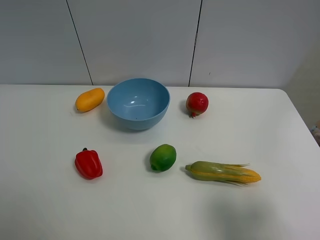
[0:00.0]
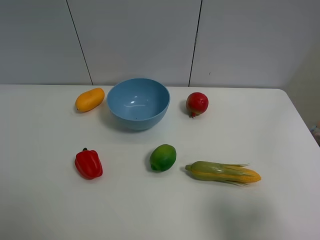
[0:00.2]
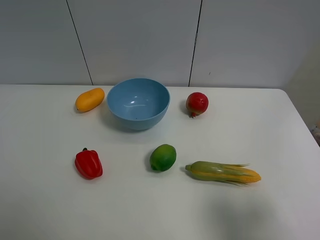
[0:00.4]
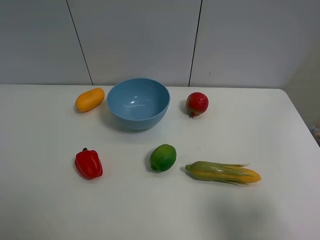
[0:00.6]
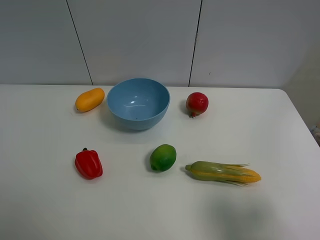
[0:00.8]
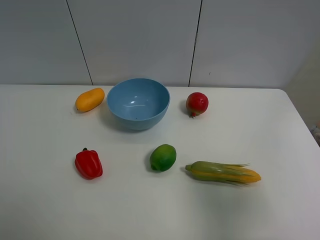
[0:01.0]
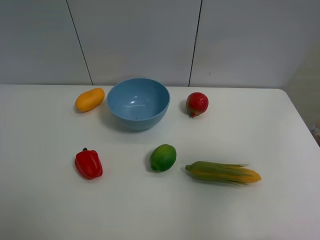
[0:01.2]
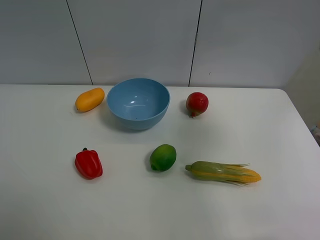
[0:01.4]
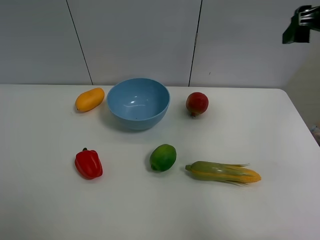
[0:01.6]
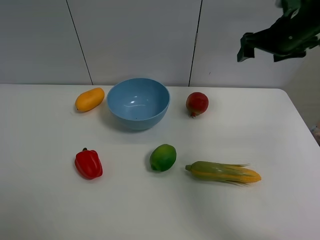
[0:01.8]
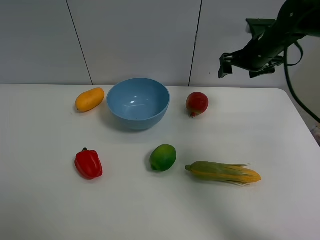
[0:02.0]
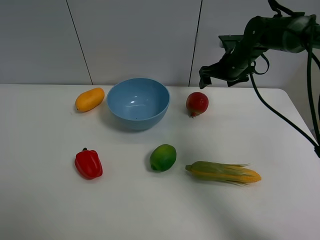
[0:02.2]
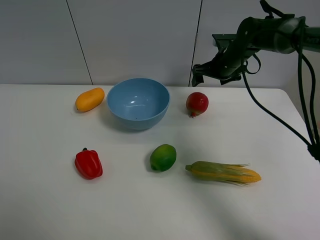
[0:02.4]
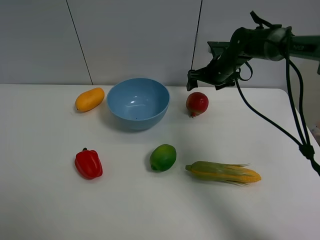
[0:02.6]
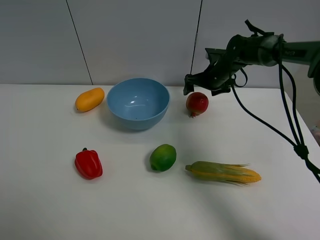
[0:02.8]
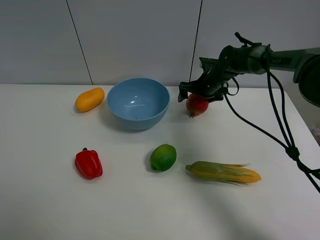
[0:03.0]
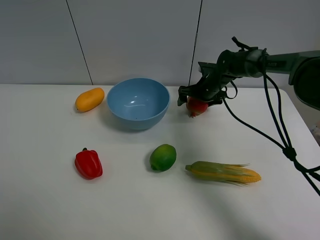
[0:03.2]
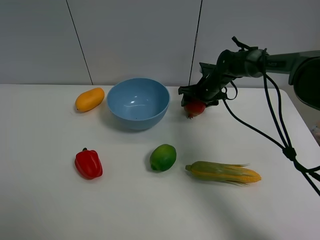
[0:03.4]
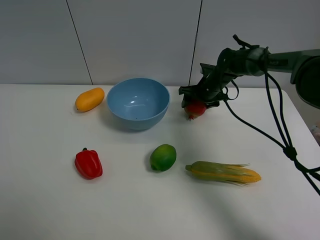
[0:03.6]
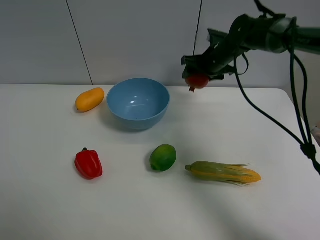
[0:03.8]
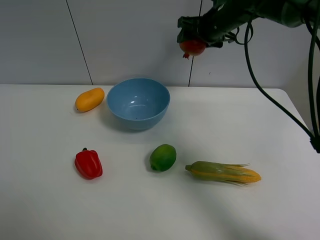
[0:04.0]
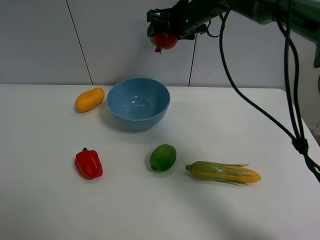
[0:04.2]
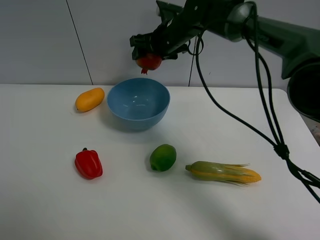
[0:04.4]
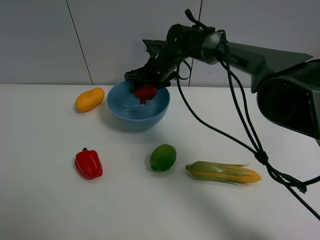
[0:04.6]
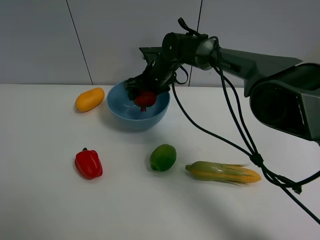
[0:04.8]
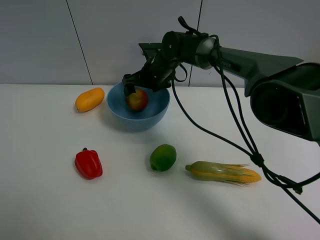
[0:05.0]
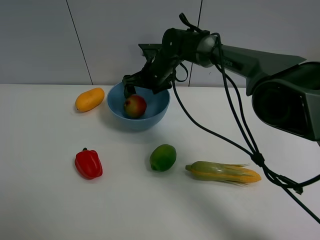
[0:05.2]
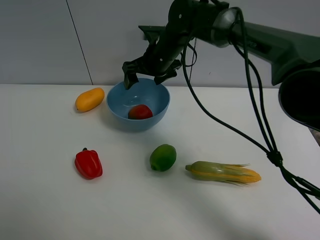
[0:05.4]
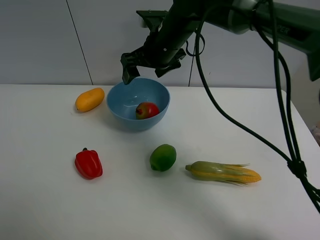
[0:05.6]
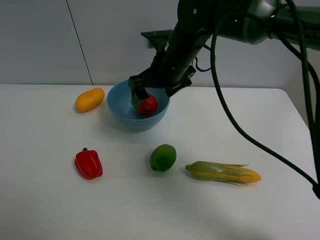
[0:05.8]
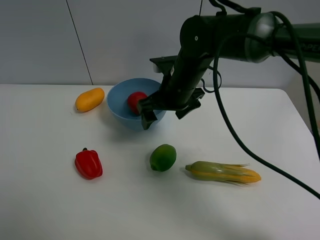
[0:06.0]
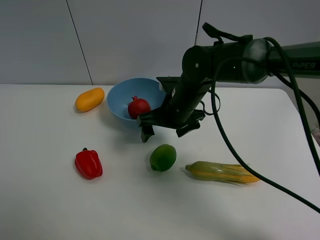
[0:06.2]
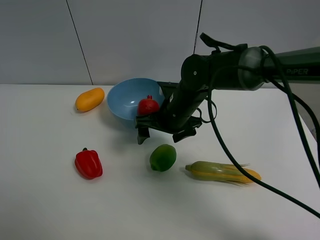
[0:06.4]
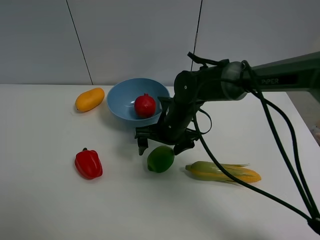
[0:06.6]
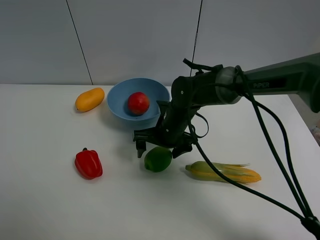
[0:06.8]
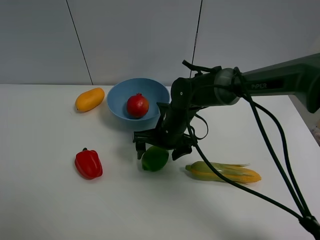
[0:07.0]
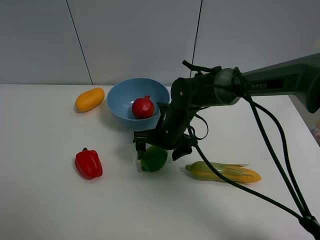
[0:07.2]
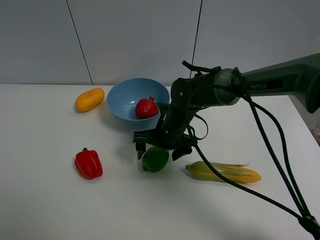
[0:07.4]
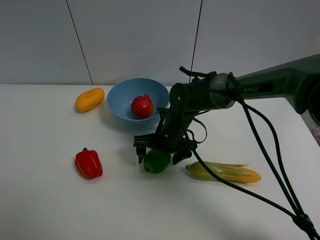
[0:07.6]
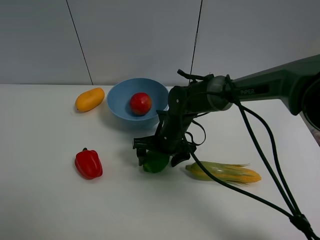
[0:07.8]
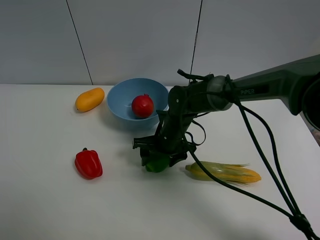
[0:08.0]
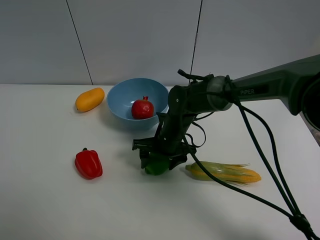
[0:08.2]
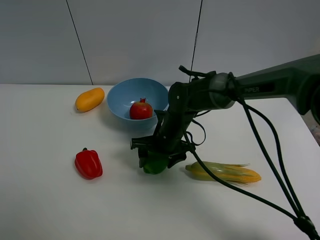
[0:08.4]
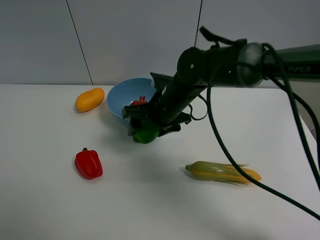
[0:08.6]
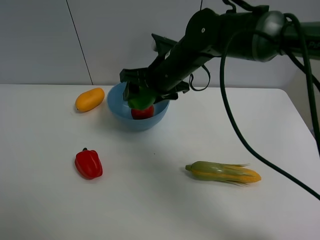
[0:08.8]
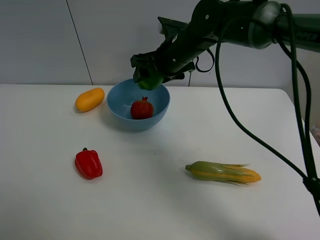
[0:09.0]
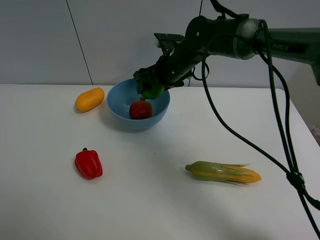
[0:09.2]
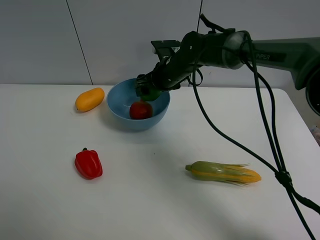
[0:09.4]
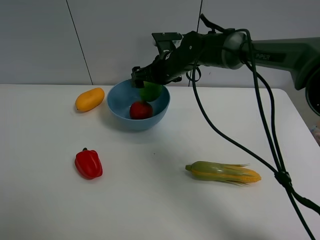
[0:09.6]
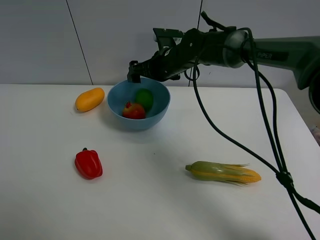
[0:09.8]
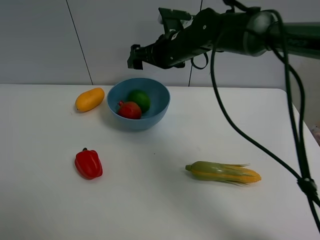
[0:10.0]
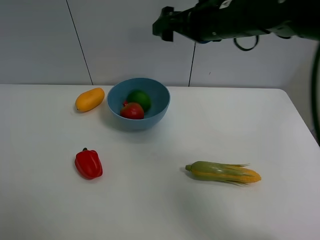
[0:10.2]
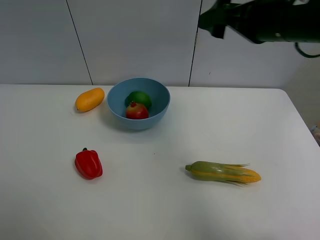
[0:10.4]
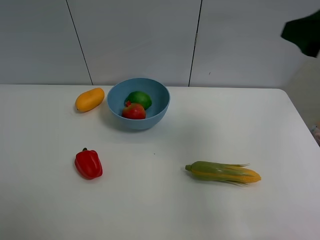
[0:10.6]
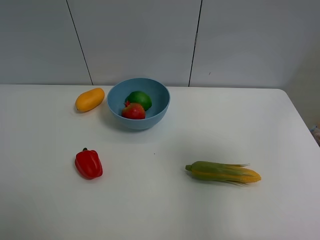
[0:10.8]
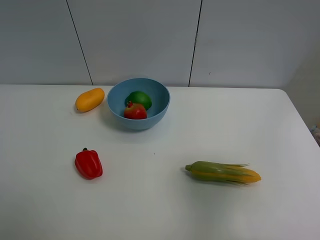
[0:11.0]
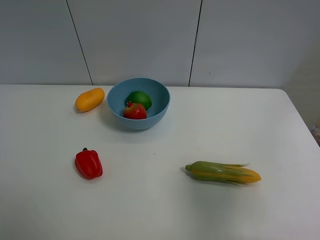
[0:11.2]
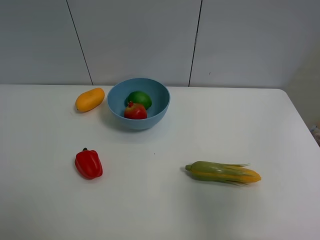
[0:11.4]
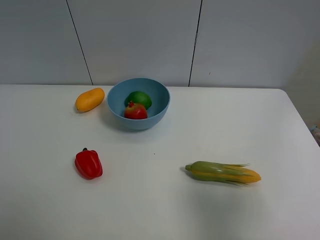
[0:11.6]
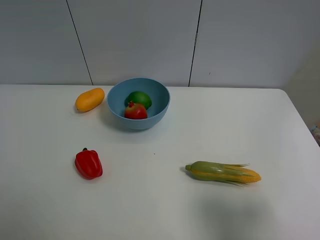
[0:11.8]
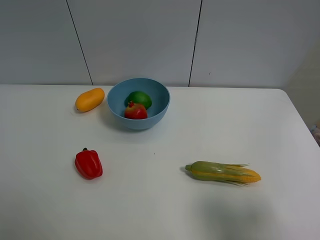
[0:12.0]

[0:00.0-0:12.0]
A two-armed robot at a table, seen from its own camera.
Task of the whole recording: Put the three fruits on the table into a bowl.
Step, 0:00.0 to 0:03.4: Grasp the pomegranate with right gripper.
Step, 0:03.6 to 0:04.8: Place the pomegranate in the blue bowl with right gripper.
Step, 0:05.0 to 0:08.2: Grasp the green lemon with right gripper.
Step, 0:08.4 to 0:09.8: Place the green lemon in the blue bowl with right gripper.
0:00.0 to 0:01.6: The right gripper is displaced forward by roughly 30 cm.
0:01.6 to 0:03.0: The right gripper is displaced downward, forward and to the left by roughly 35 cm.
0:03.0 to 0:04.4: The right gripper is displaced to the left and upward by some 20 cm, and closes.
0:04.4 to 0:06.0: The right gripper travels backward by about 15 cm, and opens its fingers.
0:06.0 to 0:07.6: The right gripper heads downward, covering about 10 cm.
0:07.6 to 0:09.0: The right gripper shifts approximately 15 cm upward and forward, and closes its fingers.
0:09.0 to 0:10.4: The right gripper is displaced to the right, backward and upward by approximately 20 cm, and opens up.
0:10.4 to 0:12.0: The right gripper goes about 25 cm backward.

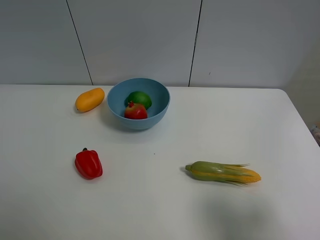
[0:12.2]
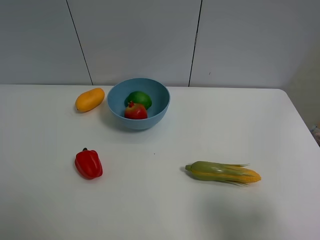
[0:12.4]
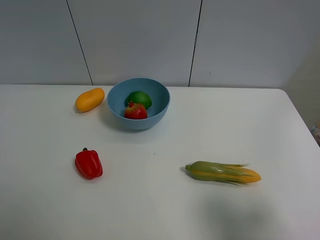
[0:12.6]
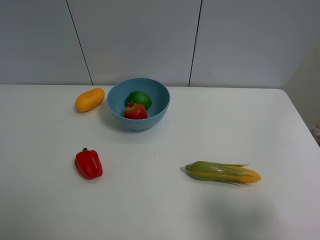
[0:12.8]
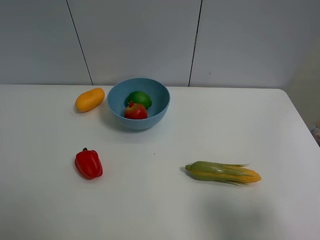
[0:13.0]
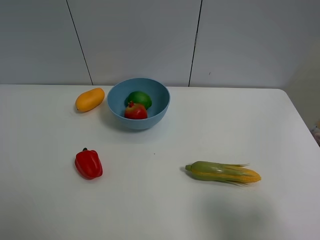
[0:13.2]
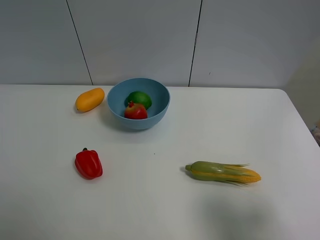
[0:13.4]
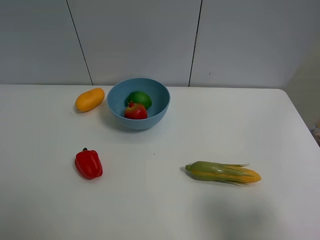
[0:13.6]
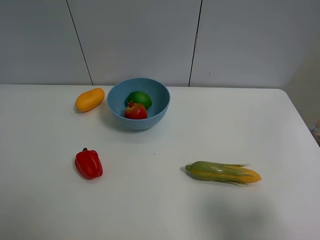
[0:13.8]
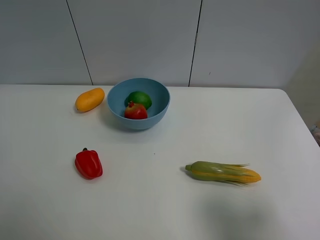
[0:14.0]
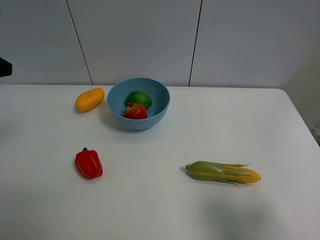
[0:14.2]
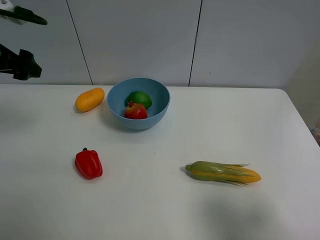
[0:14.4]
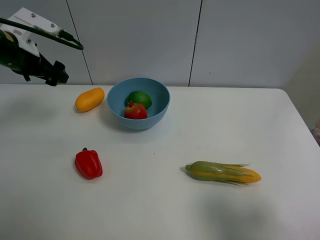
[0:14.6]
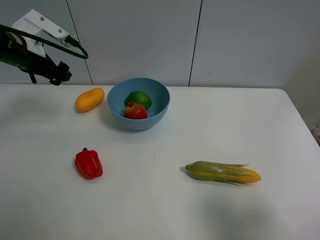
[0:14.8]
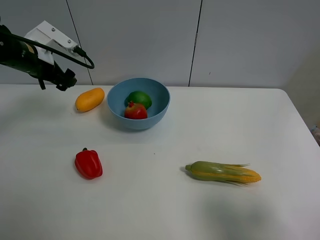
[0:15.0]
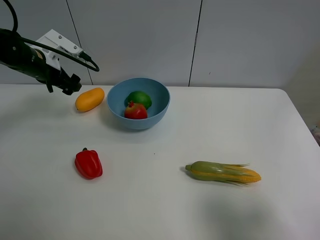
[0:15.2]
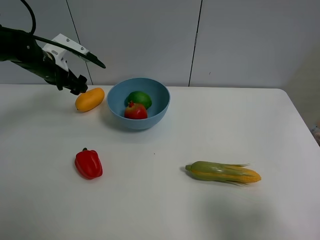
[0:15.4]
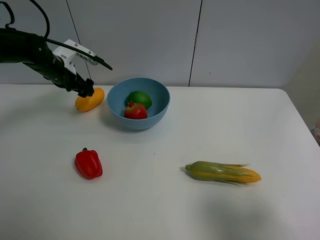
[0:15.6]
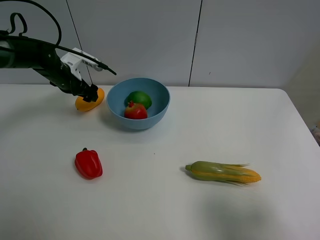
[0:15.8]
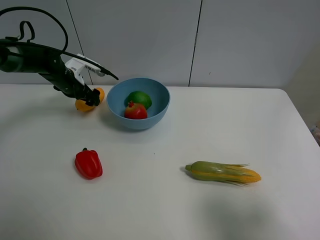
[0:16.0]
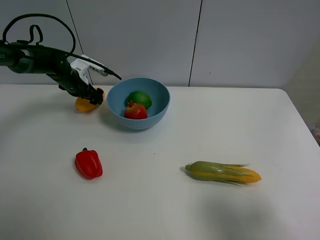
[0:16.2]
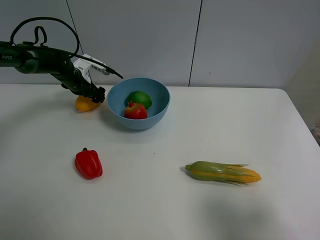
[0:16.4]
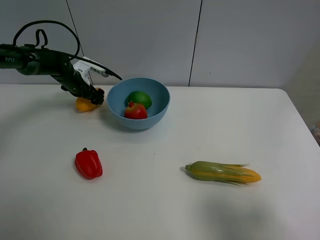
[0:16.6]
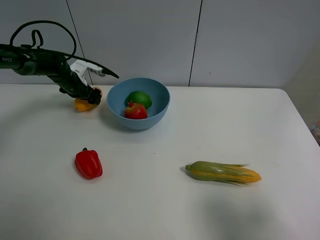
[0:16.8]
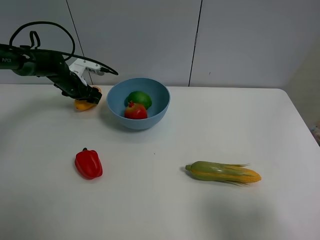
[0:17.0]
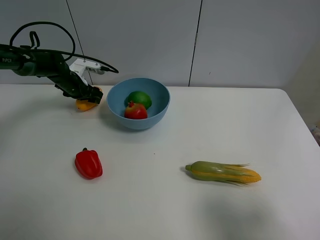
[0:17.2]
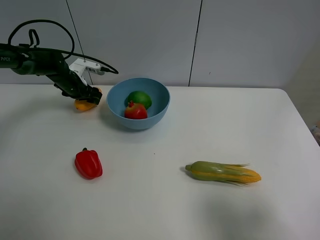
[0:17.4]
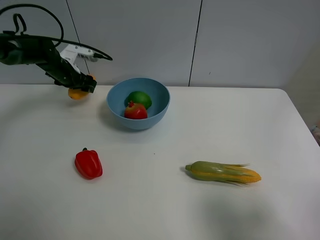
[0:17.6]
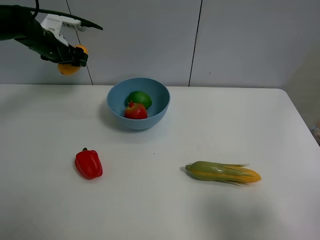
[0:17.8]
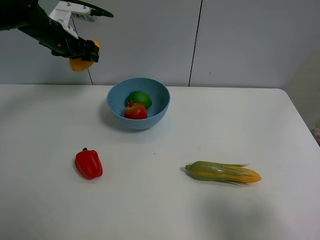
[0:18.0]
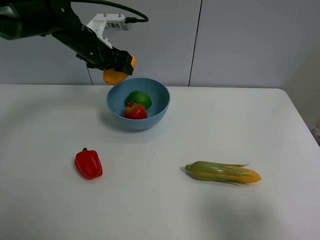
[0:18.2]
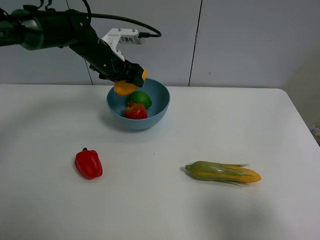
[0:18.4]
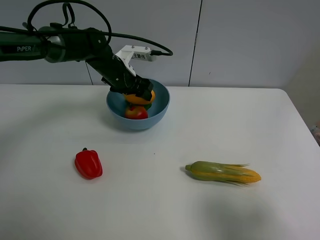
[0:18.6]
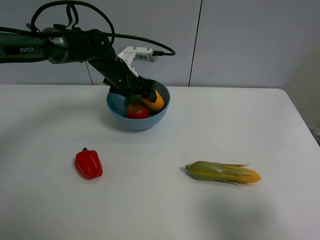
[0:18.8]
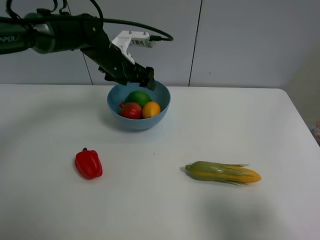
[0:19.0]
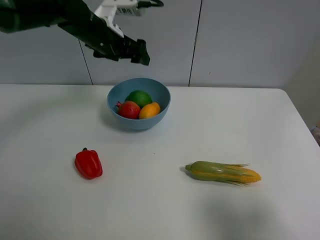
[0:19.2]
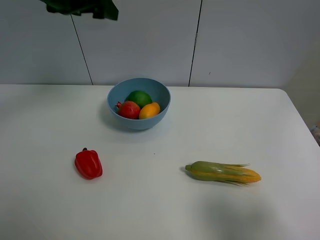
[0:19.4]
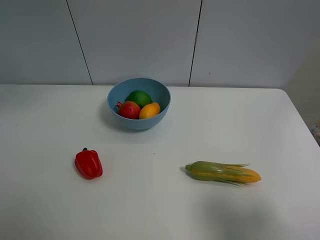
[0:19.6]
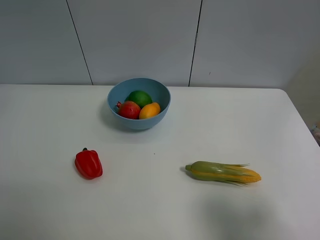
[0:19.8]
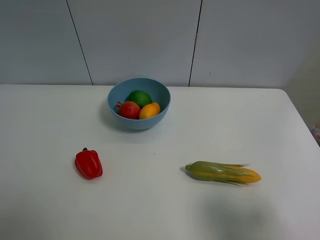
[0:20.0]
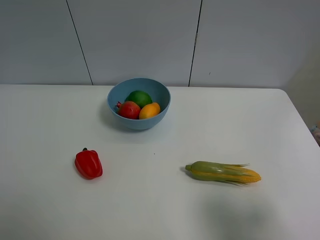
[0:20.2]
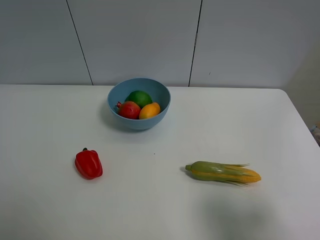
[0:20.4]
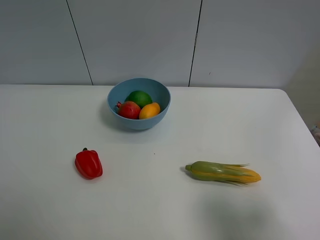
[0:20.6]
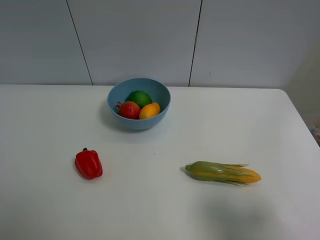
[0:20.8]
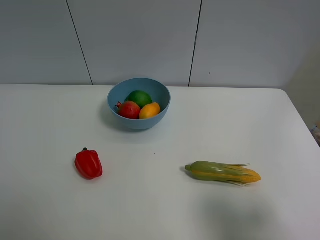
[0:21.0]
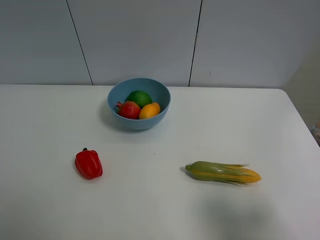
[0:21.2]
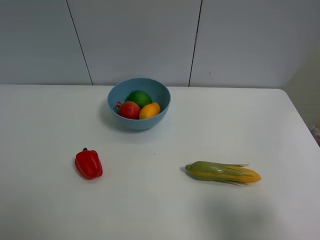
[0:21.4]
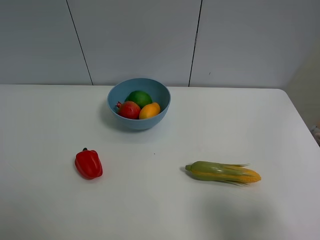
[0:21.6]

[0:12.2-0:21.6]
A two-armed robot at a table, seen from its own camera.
Task of the whole recording: Put the three fruits on the table into a bowl.
Step, 0:12.2 to 0:17.0: Grasp the mango with left gripper.
Step, 0:17.2 to 0:19.0: Place the mango in the blue bowl with left gripper.
0:13.8 to 0:15.4: The left gripper travels forward by about 35 cm.
0:15.4 to 0:17.0: The left gripper is displaced downward and forward by some 10 cm, and closes up.
0:17.0 to 0:18.4: The left gripper heads to the right, upward and backward, covering roughly 20 cm.
0:18.4 to 0:20.0: The left gripper moves upward, backward and to the left, approximately 40 cm, and opens up.
